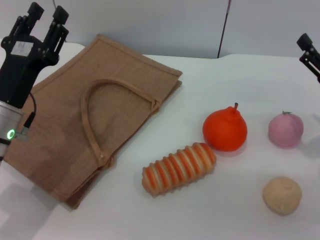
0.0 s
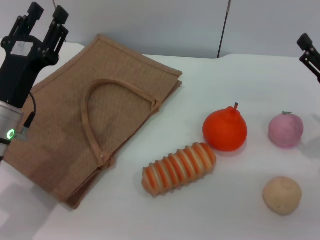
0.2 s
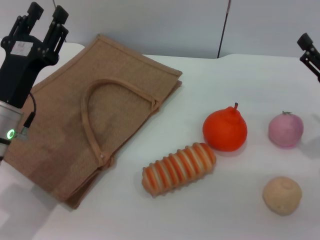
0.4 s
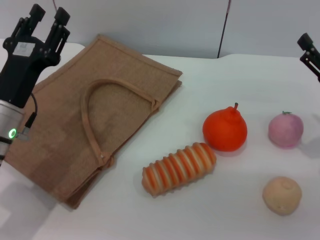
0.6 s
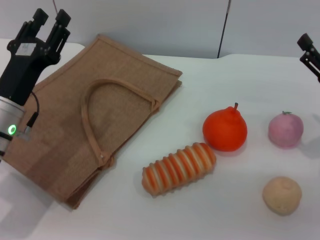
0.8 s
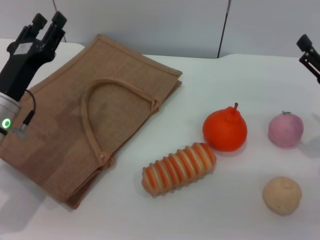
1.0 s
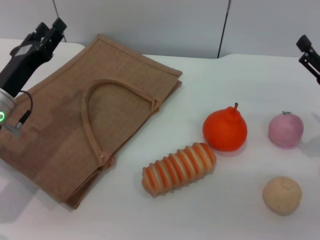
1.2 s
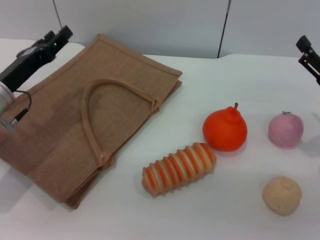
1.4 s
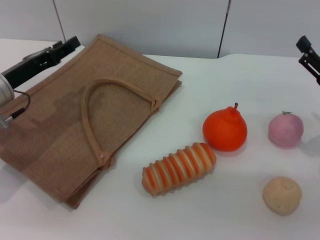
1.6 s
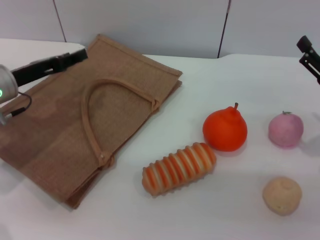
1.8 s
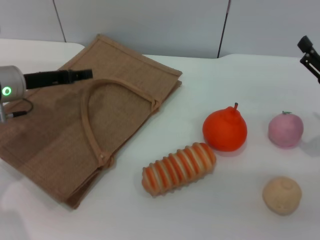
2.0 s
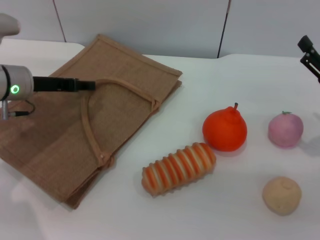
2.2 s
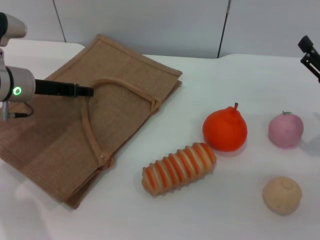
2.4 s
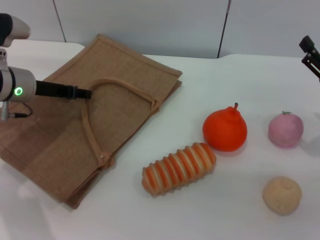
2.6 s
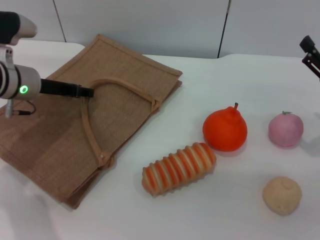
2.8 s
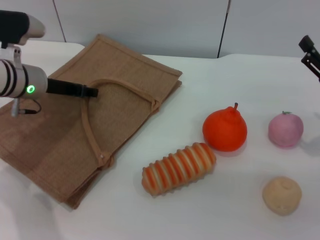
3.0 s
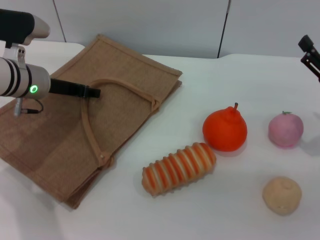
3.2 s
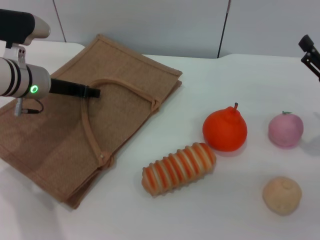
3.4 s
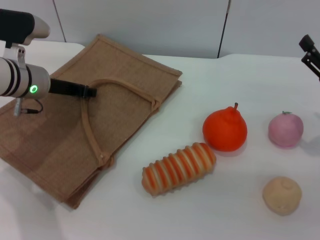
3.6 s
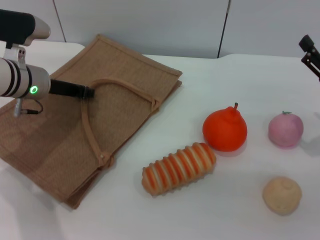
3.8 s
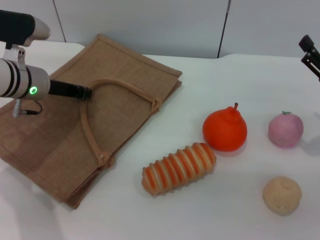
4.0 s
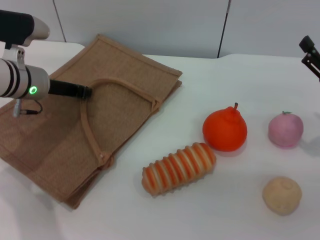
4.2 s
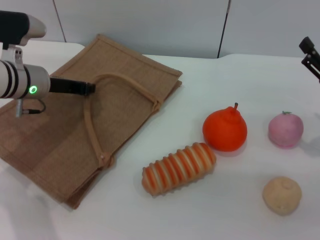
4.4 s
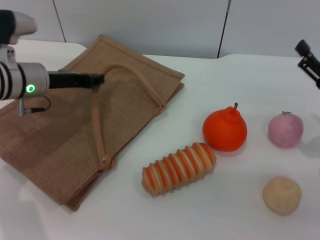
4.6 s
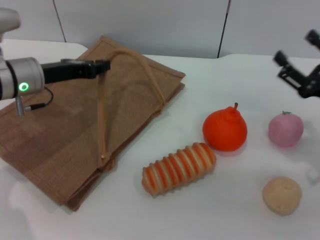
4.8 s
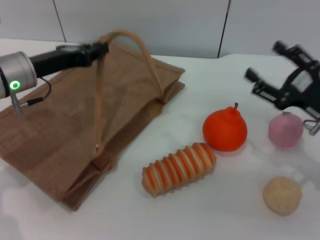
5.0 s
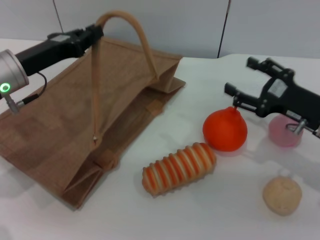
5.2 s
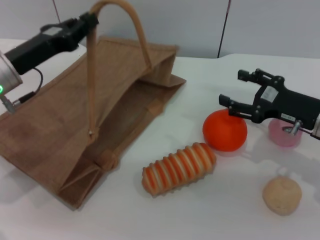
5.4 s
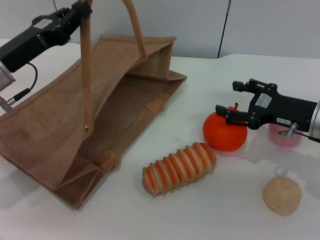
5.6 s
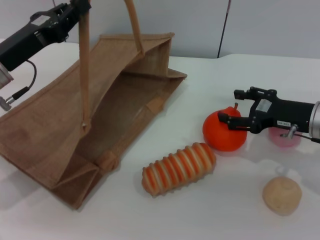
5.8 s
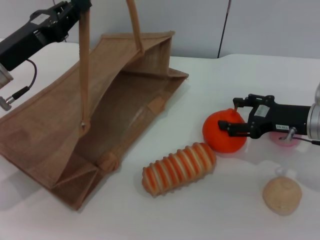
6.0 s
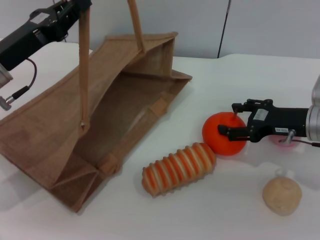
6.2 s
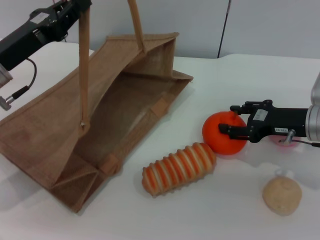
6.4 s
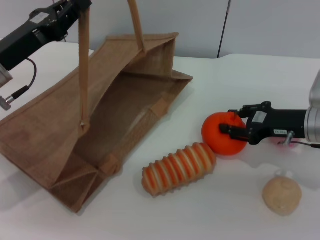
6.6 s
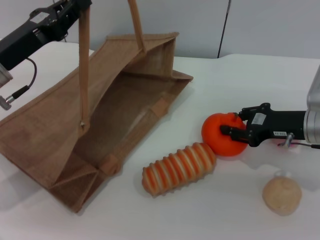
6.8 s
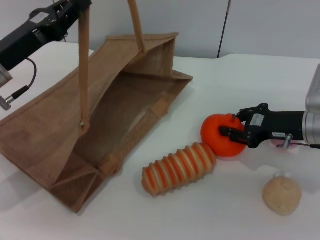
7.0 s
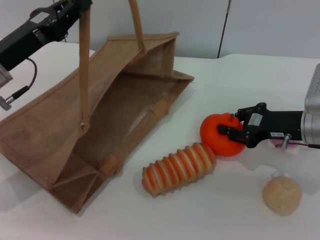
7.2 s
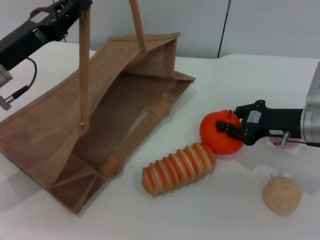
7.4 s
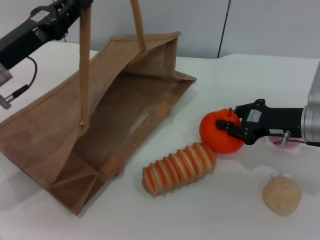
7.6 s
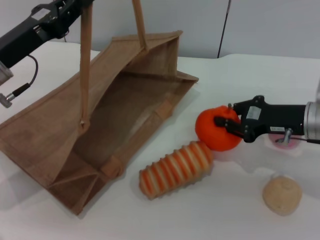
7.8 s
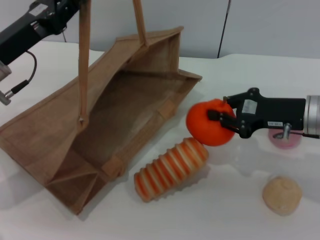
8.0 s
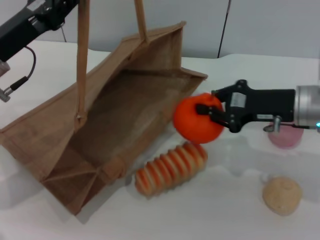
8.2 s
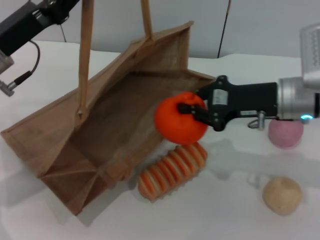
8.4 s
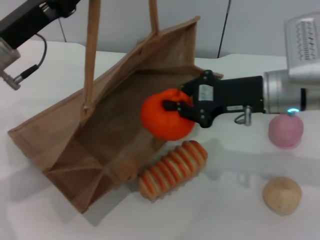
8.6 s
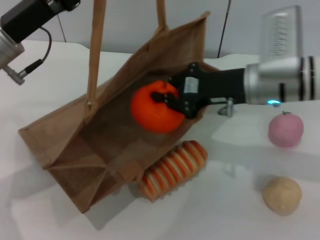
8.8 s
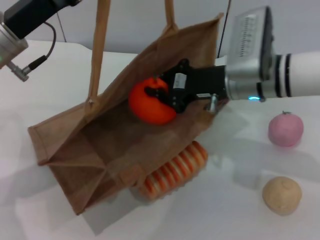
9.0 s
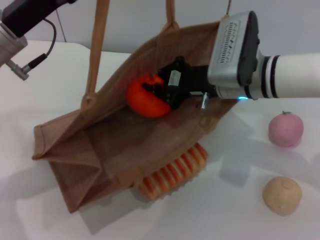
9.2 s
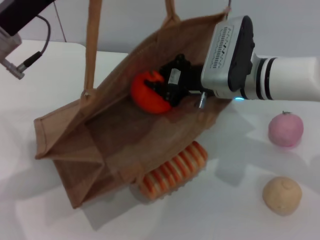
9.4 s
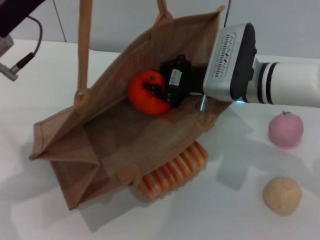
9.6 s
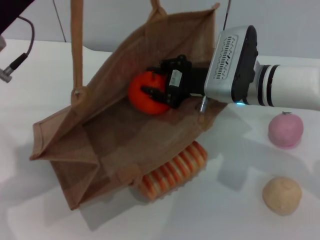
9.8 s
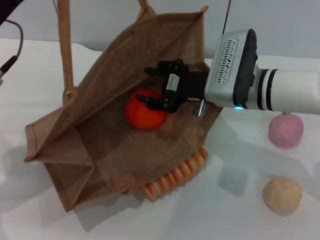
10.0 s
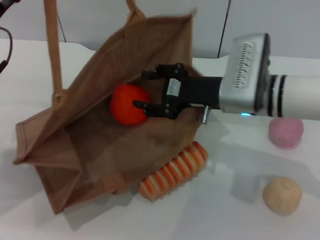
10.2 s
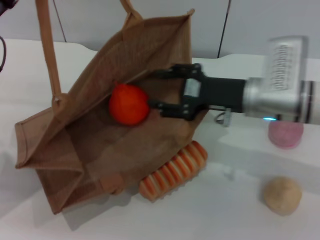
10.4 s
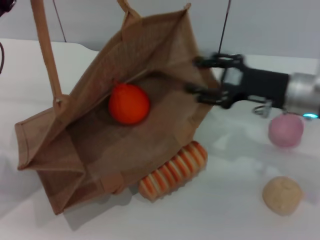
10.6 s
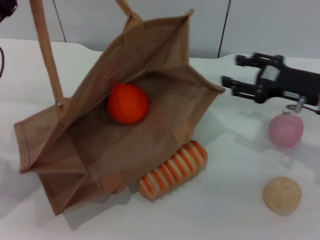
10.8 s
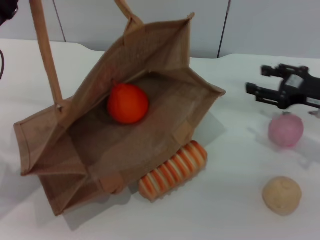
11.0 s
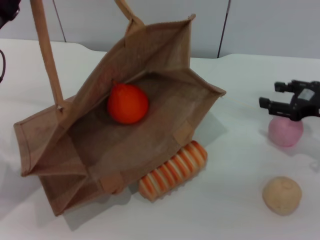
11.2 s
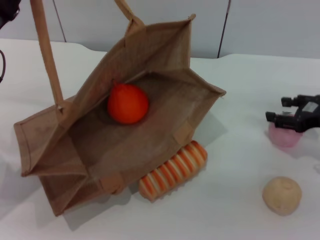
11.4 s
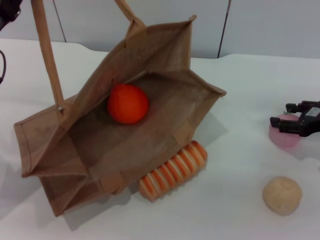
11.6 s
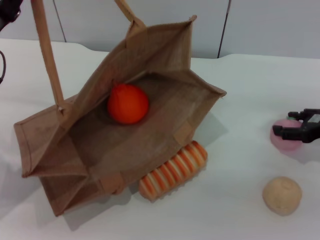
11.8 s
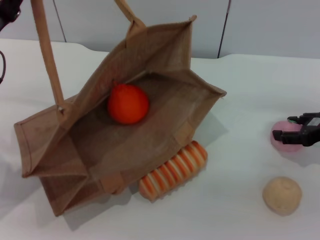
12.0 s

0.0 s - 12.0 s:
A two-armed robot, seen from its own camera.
Task of the whole recording: pick up the orange and peach from the table and place it in the brown handbag.
Step, 0.0 s - 4.2 s: Lift the woven bag with the left gripper to open it.
Step, 4.4 s - 8.0 s: Pick up the orange with the right gripper.
Step, 8.2 s - 10.6 s: Place the orange into the woven bag with the right gripper.
0.0 s - 1.6 s: The left gripper shifts about 10 cm forward and to the left.
1.6 s - 3.0 s: The left gripper heads forward, covering roughly 5 cm.
3.0 s - 4.4 s: The left gripper closes its fingers.
4.4 s - 6.0 s: The right gripper moves forward and to the left, approximately 10 cm; the left gripper is displaced backward by about 10 cm.
6.0 s - 7.6 s: The right gripper closes.
7.6 s - 9.0 s: The right gripper moves to the left and upward, roughly 15 cm.
9.0 s - 10.4 s: The right gripper opens its fingers. The left gripper shifts by some 5 cm.
10.4 s - 12.0 s: The right gripper goes approximately 20 cm to the right.

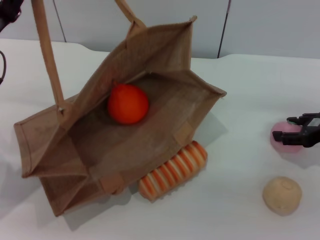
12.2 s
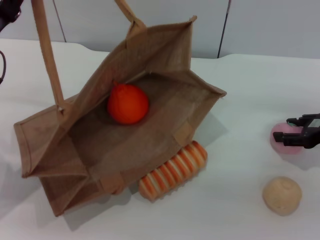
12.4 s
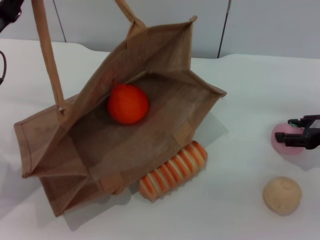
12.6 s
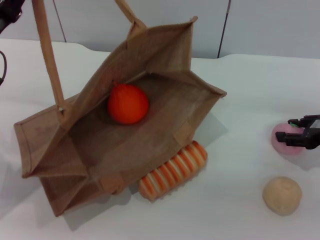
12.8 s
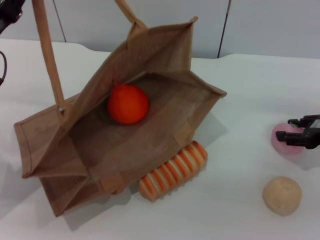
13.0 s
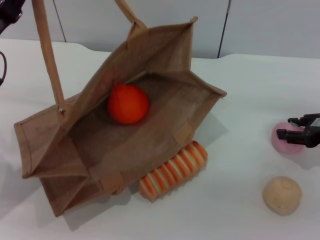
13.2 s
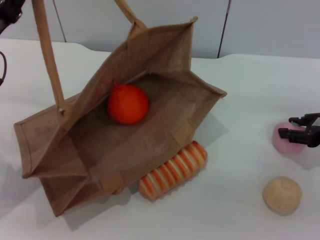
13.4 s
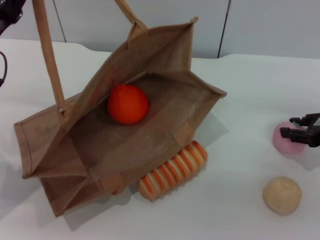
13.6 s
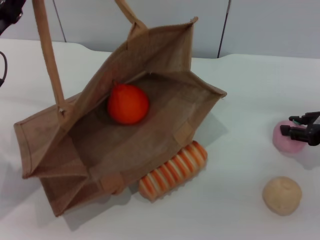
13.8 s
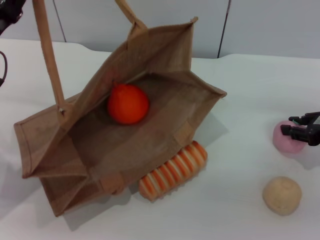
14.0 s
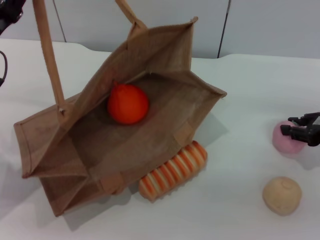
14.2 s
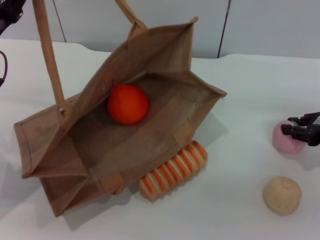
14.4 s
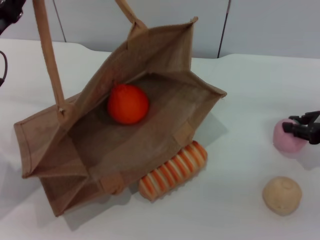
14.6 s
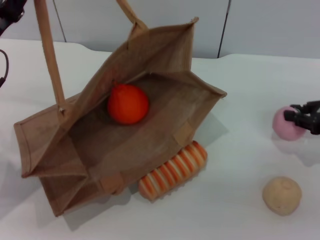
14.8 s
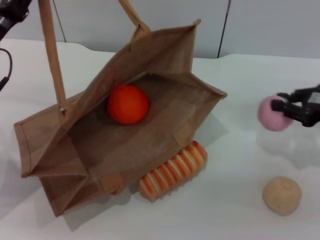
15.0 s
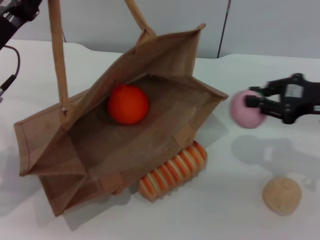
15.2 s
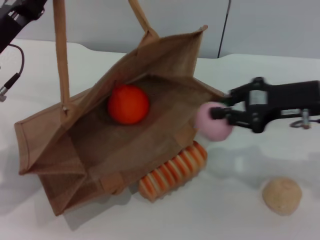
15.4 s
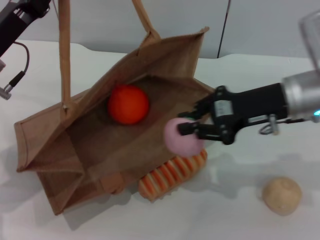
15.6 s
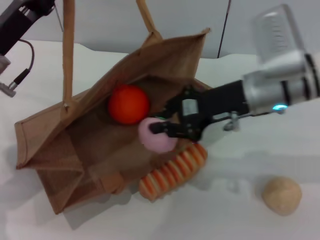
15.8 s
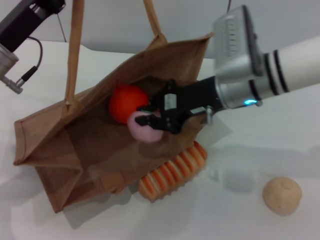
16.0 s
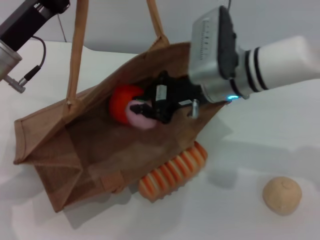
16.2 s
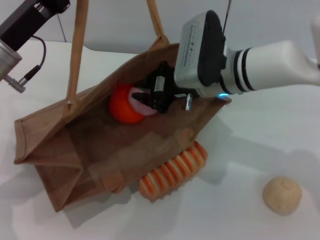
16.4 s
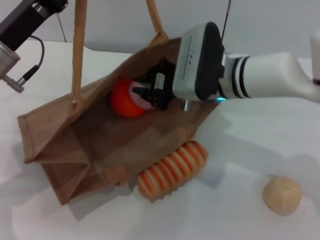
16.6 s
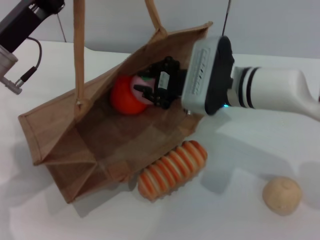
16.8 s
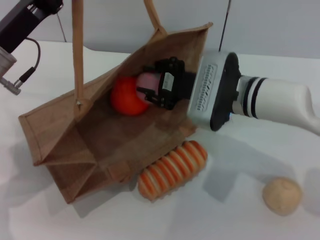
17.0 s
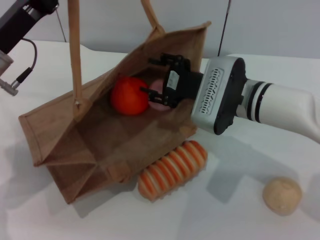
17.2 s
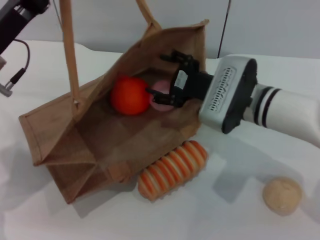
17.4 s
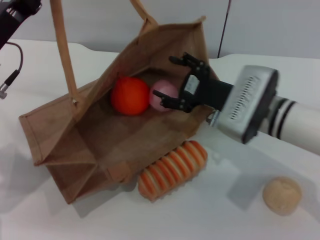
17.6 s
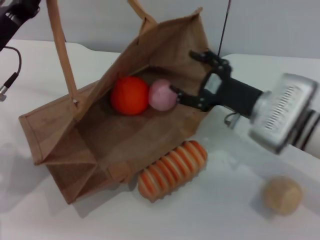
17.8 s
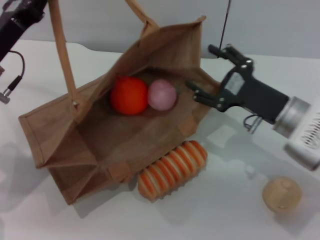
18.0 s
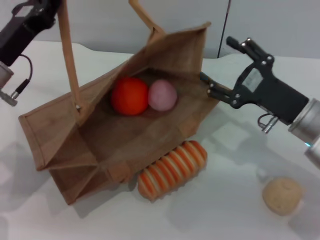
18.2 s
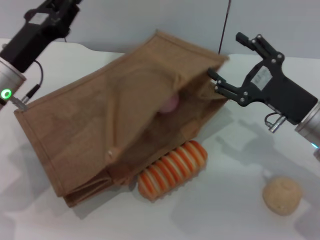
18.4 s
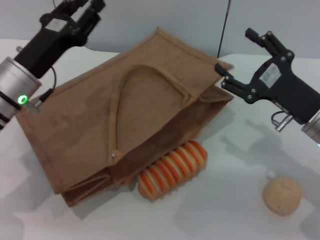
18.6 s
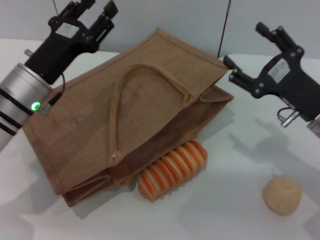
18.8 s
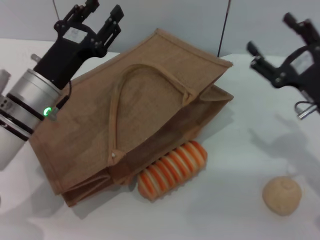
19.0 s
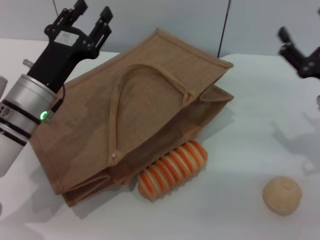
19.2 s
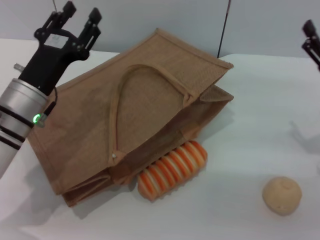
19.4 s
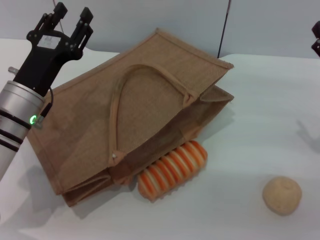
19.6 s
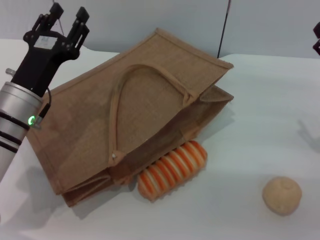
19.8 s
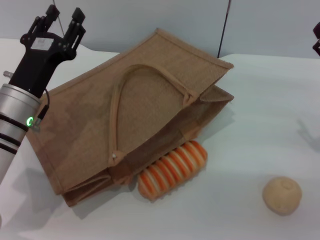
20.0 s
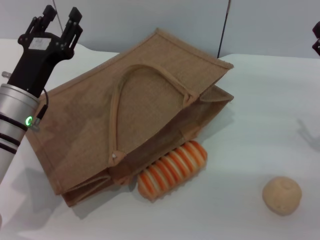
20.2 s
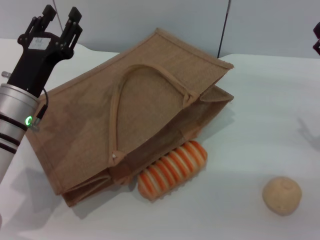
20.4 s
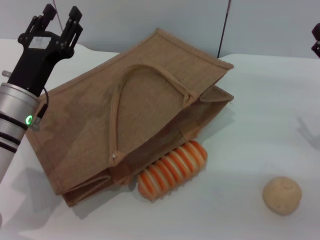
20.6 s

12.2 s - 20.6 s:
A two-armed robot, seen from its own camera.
Task of the whole recording: pick up the orange and peach from the table and place it in the brown handbag.
Step, 12.2 s - 14.8 s: Pick up the peach with the right gripper.
Step, 15.2 s - 18.2 s: Place the peach into the woven bag with the right gripper.
Step, 18.4 s - 20.0 s: Lift the woven bag with the left gripper to open it.
12.2 s - 13.6 s: Neither gripper changes place.
13.6 s - 15.0 s: There are only small adjustments of the grippers.
15.0 s - 16.4 s: The right gripper travels to the left by some 25 cm.
16.4 s - 17.8 s: The right gripper is displaced to the right, downward and backward by some 10 cm, and opens.
17.8 s - 19.2 s: Both grippers move to the right, roughly 10 cm. The left gripper opens its fingers.
19.2 s - 20.6 s: The grippers make only small movements.

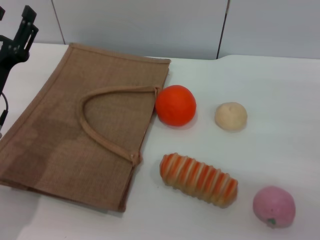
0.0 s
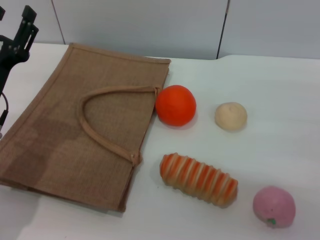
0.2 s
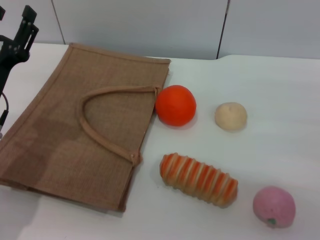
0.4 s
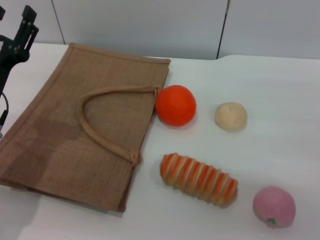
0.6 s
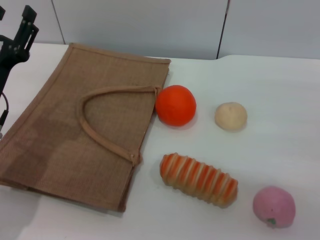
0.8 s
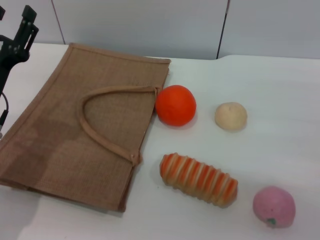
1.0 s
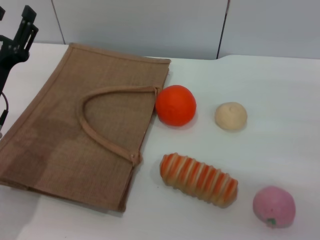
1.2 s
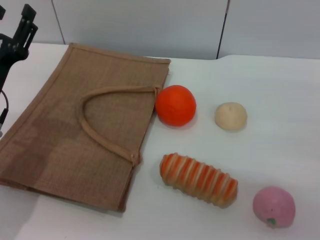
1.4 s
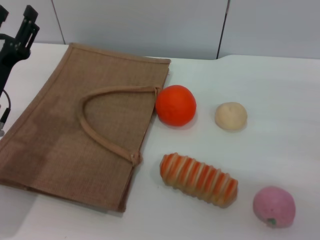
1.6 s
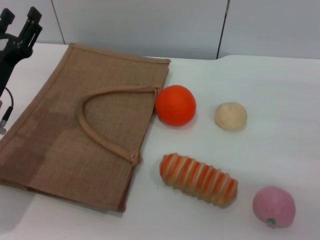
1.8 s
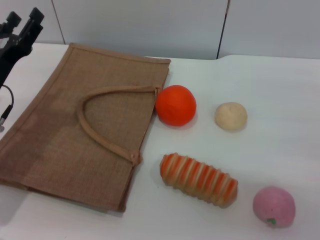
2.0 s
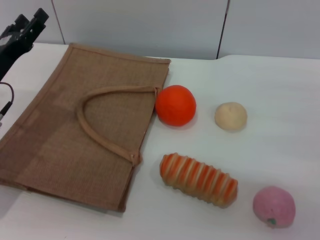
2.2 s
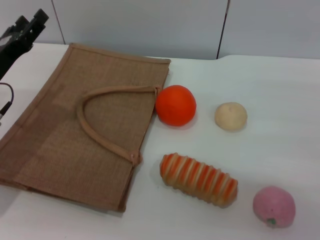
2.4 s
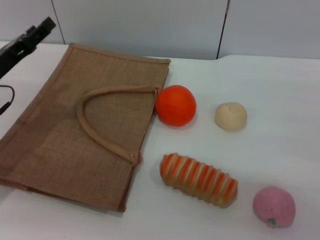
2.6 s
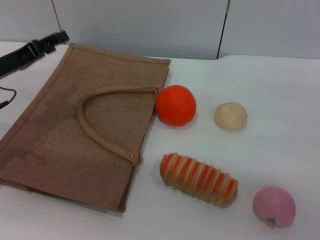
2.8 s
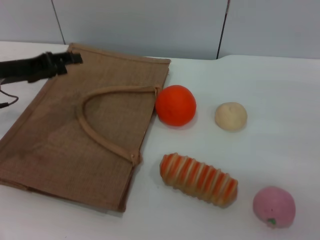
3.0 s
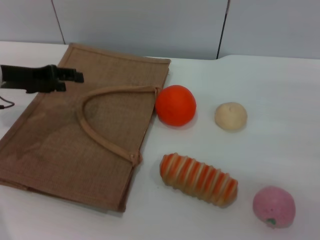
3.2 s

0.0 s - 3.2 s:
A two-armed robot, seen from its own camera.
Task of the whole recording: pick up the egg yolk pastry from the table and place it in the brown handbag.
0.0 s - 1.6 s: Both grippers stay about where they are.
1.6 s - 3.2 s: The left gripper travels forward and upward by about 10 cm.
